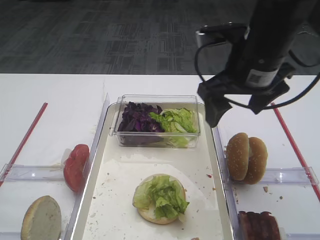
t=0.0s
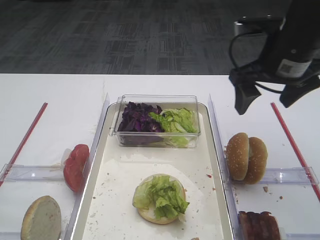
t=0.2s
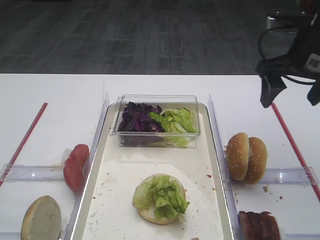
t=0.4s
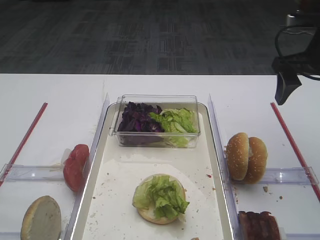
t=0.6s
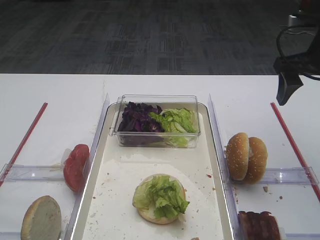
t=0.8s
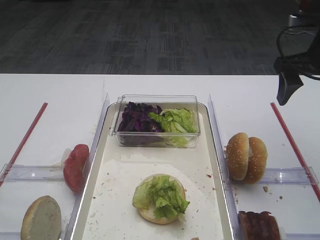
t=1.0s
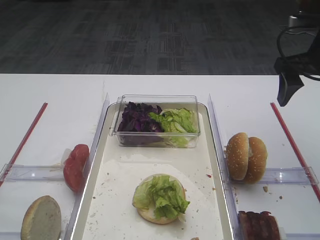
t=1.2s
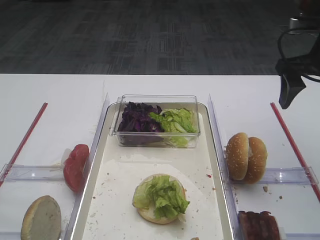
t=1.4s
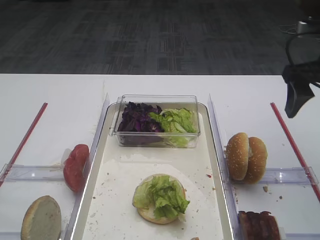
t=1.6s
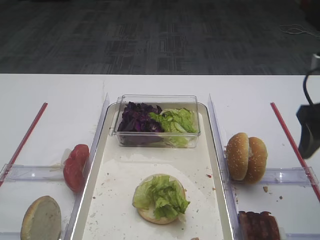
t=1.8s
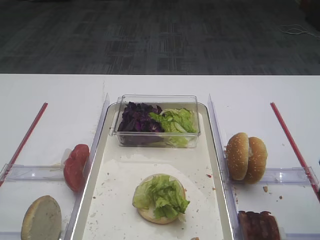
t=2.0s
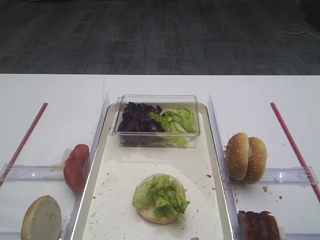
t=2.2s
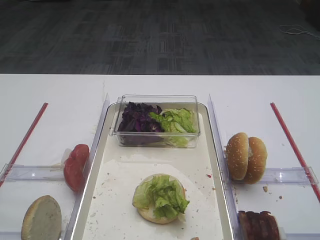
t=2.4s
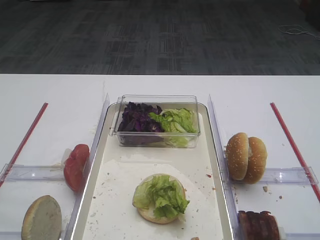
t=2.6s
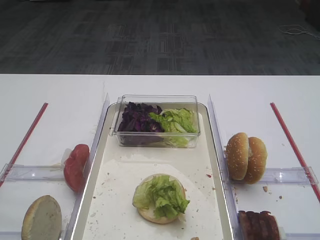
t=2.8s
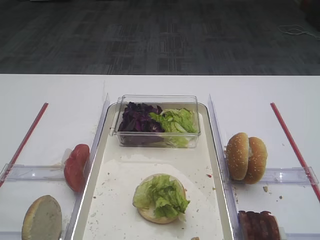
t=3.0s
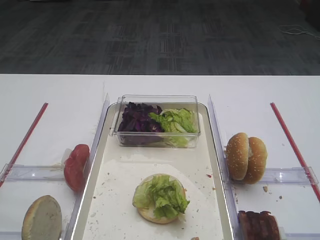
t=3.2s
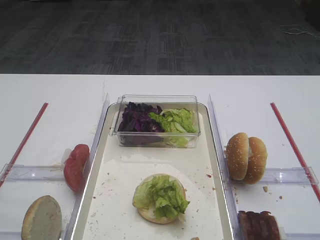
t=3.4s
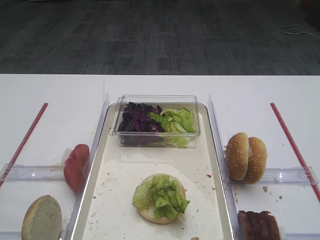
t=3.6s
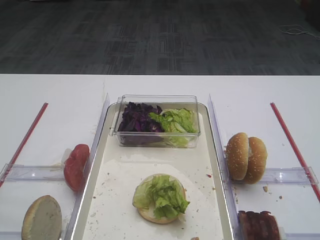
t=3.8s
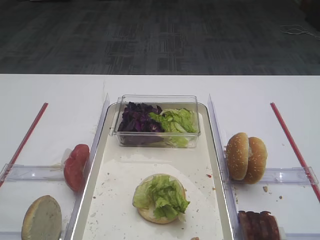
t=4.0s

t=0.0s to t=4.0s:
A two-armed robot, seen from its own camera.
t=0.0s to t=1.4s: The right gripper is displaced to the right by roughly 15 cm.
t=1.4s to t=2.6s: The right gripper is displaced backward by some 30 cm.

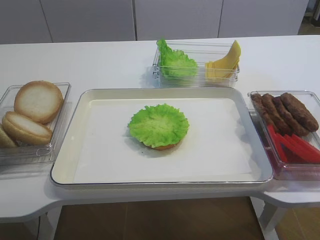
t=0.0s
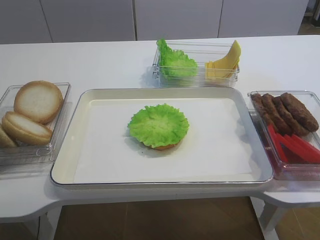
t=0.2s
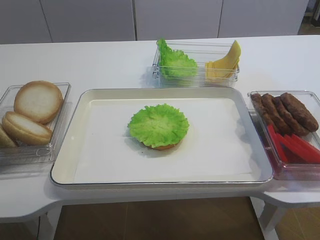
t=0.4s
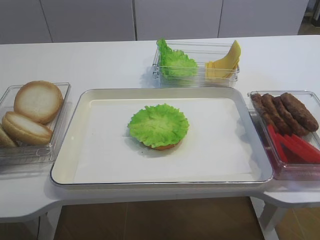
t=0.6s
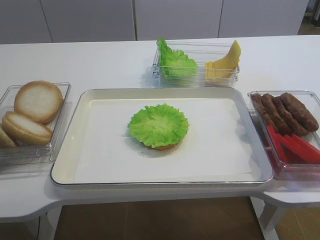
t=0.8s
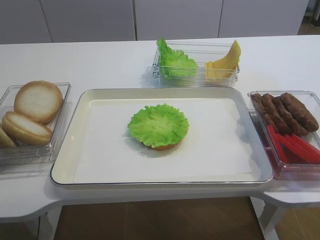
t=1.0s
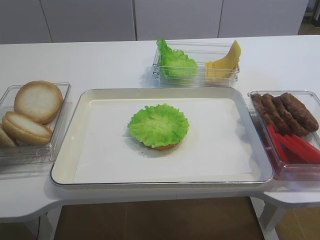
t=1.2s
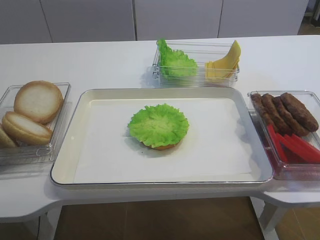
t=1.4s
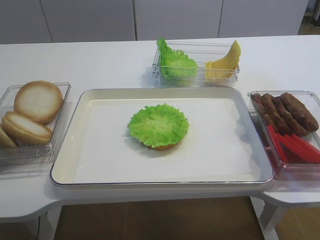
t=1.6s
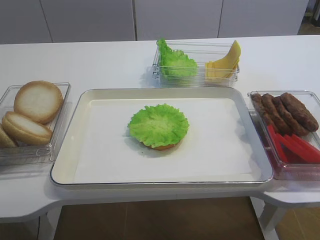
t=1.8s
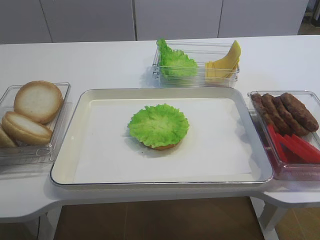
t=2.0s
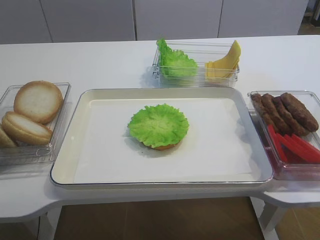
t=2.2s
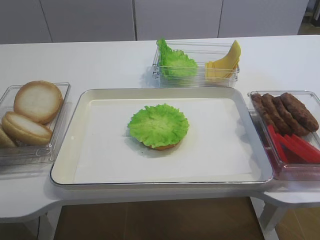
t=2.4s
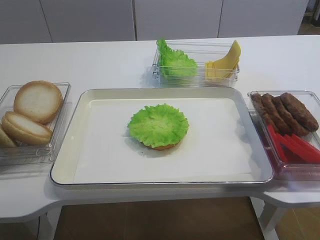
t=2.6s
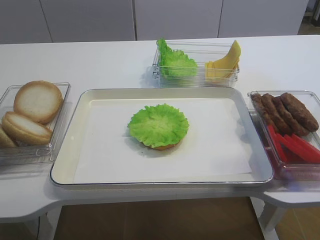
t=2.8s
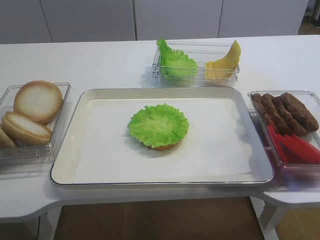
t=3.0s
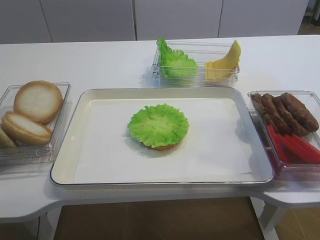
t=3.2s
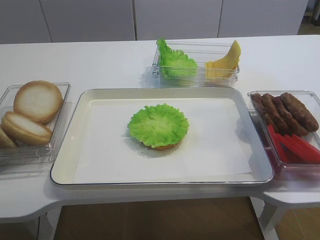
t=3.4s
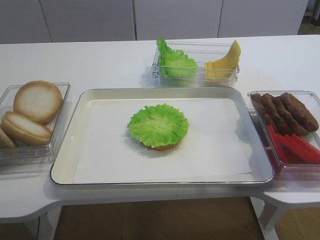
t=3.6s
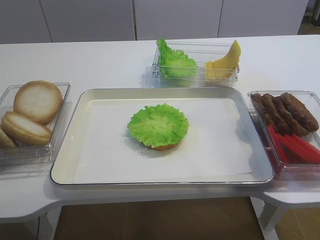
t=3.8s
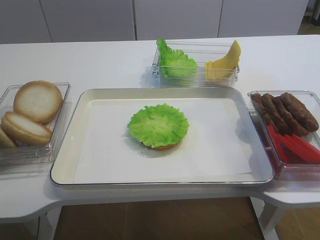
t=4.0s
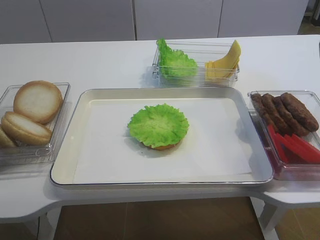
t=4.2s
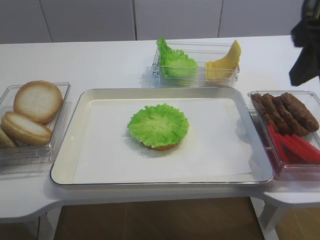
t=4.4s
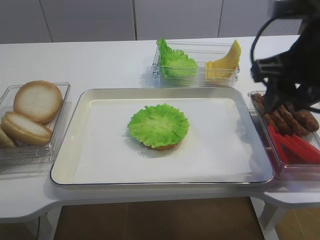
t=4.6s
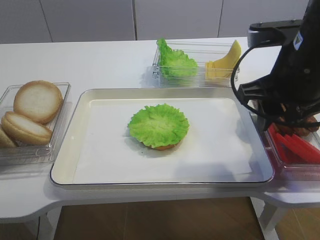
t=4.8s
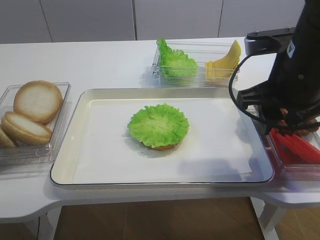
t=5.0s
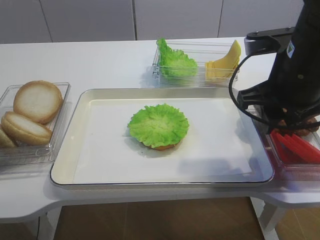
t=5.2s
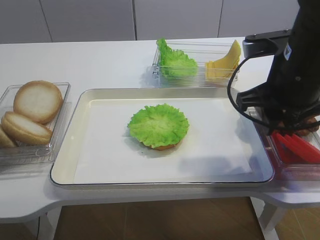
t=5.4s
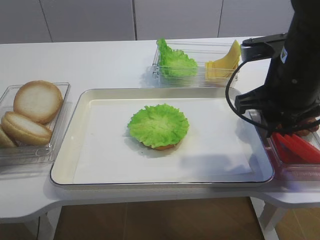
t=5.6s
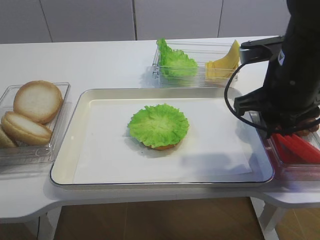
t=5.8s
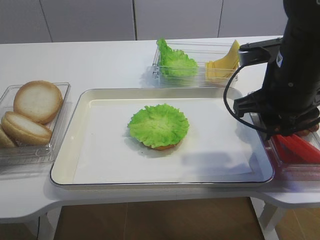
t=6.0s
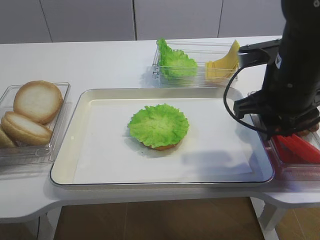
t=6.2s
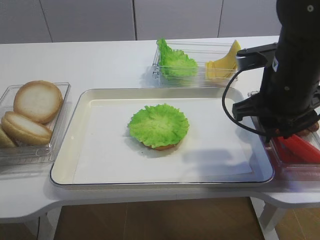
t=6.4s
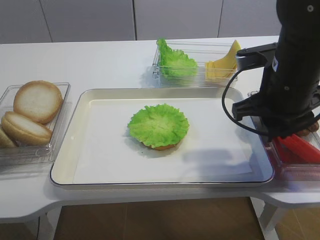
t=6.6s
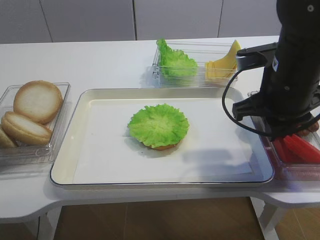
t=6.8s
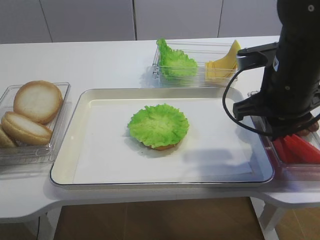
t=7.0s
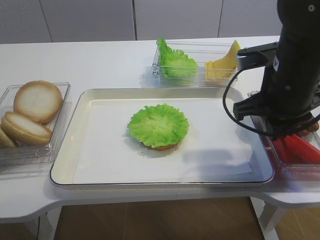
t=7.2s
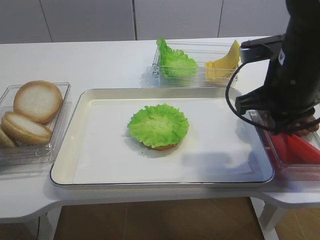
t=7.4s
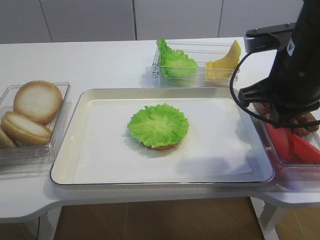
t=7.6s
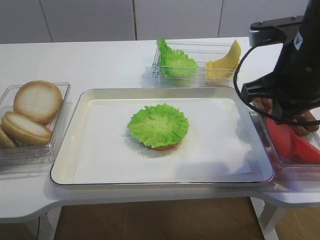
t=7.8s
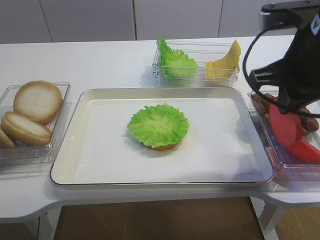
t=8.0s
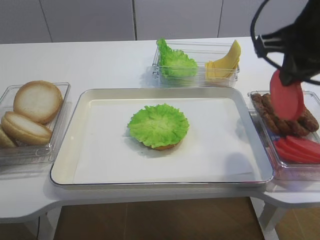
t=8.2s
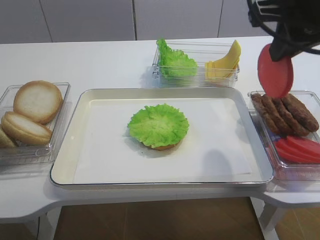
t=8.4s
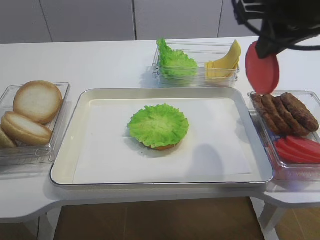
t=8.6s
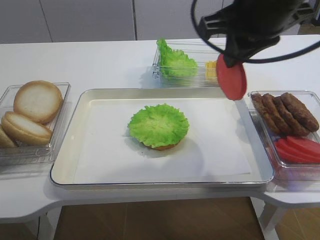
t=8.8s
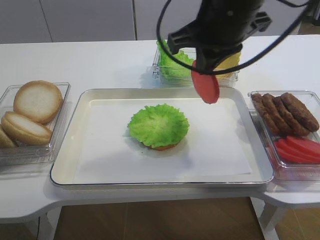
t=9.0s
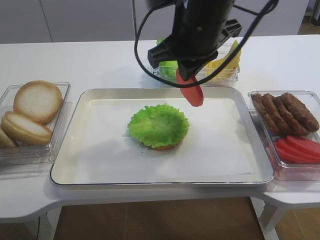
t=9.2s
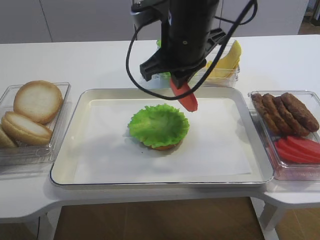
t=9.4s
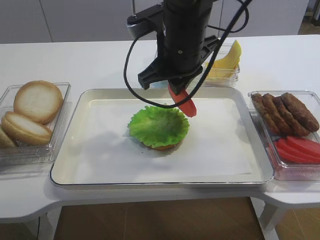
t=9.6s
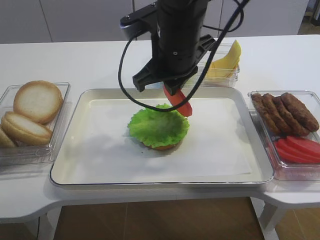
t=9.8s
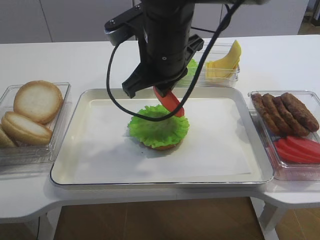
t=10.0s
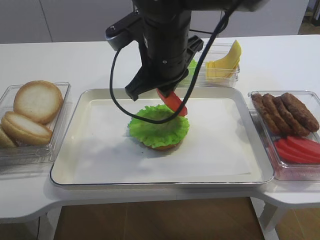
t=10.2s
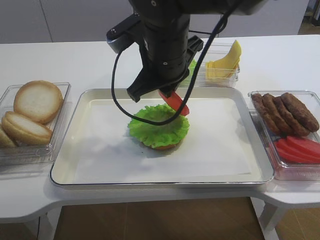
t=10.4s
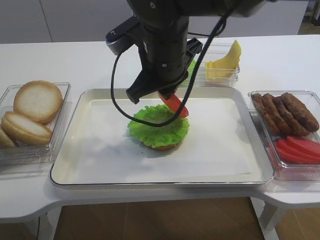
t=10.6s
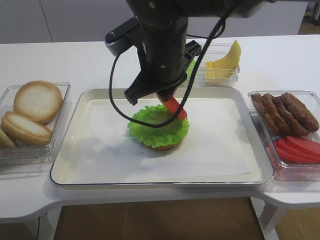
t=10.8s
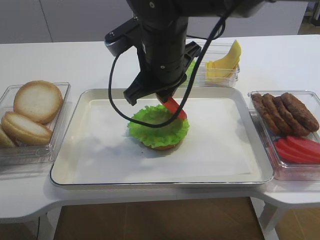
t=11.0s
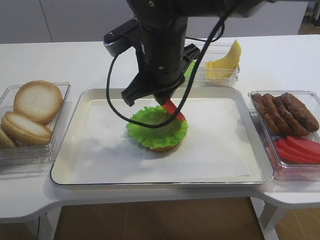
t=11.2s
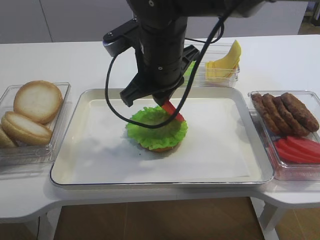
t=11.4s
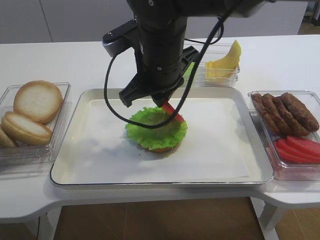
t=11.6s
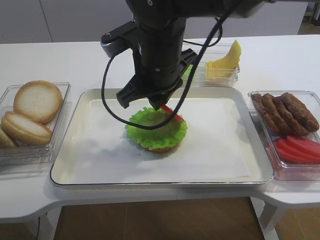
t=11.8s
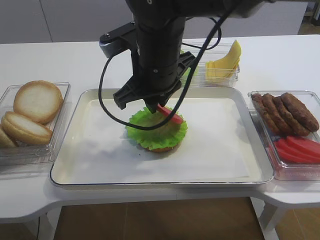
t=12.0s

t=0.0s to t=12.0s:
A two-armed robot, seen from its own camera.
Step, t=0.0s to t=7.8s: Pick up the tomato slice with the right gripper.
t=1.6s to t=3.0s: The right gripper is displaced upward by about 10 cm, and opens up.
t=3.0s to t=4.4s: The right gripper goes about 15 cm forward.
t=4.4s to t=6.0s: The right gripper goes about 10 cm downward and forward.
t=6.0s to t=7.6s: The right gripper closes up.
t=7.6s to t=9.0s: The right gripper moves to the left and upward, approximately 10 cm.
t=9.0s to t=10.4s: The right gripper goes approximately 10 cm to the left and downward.
t=10.4s to t=12.0s: The grippers make only small movements.

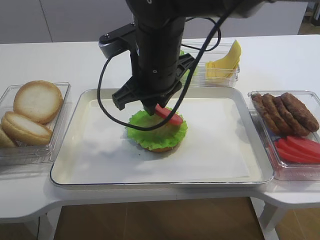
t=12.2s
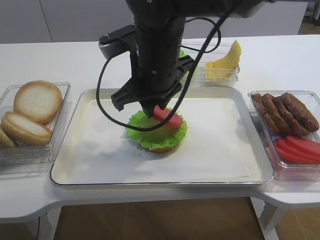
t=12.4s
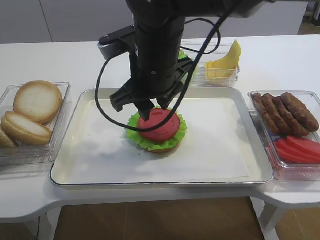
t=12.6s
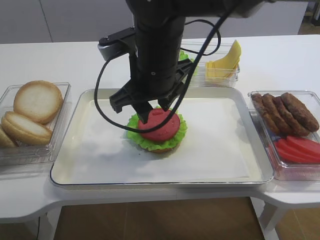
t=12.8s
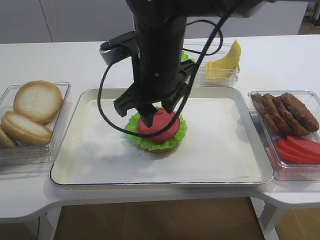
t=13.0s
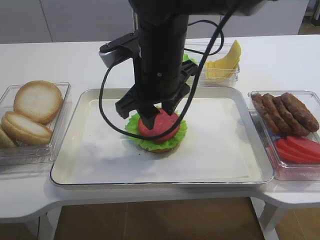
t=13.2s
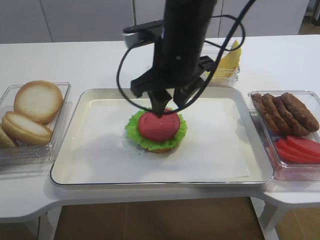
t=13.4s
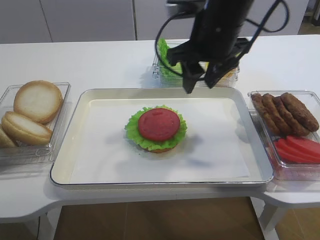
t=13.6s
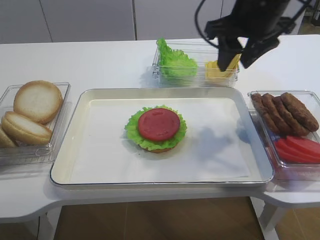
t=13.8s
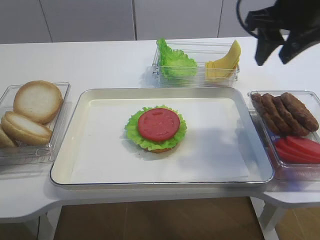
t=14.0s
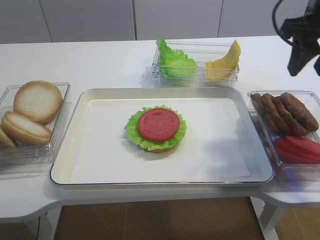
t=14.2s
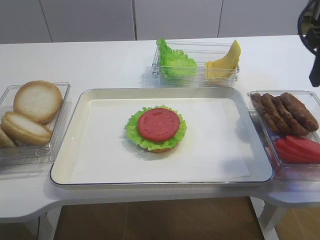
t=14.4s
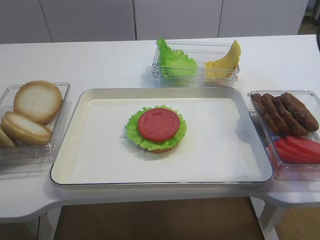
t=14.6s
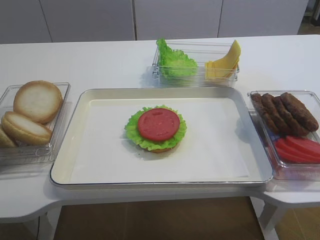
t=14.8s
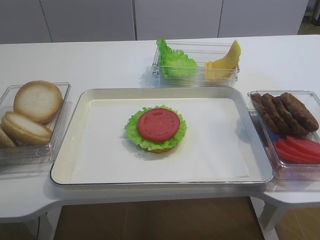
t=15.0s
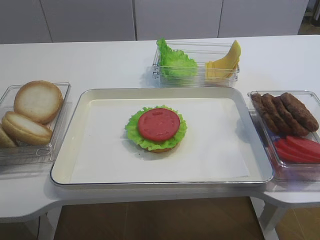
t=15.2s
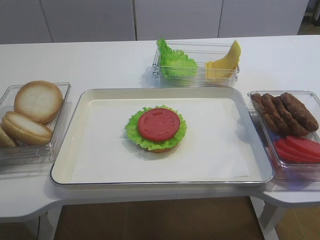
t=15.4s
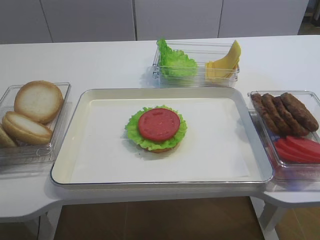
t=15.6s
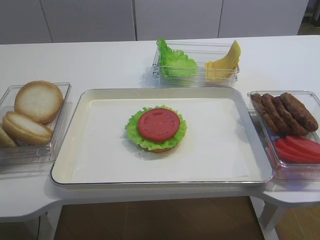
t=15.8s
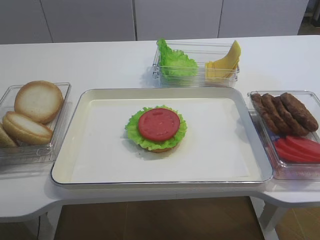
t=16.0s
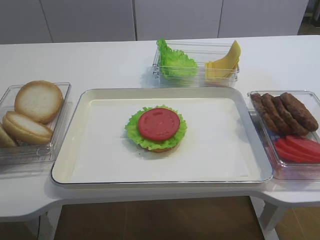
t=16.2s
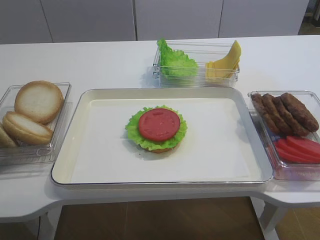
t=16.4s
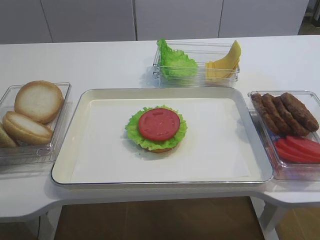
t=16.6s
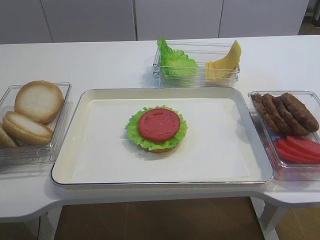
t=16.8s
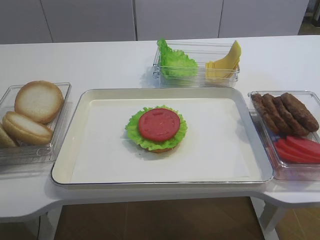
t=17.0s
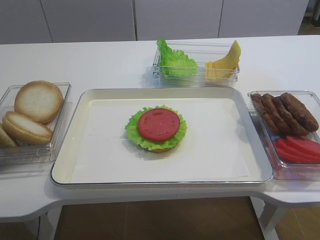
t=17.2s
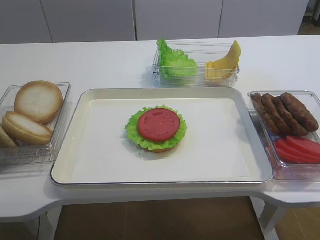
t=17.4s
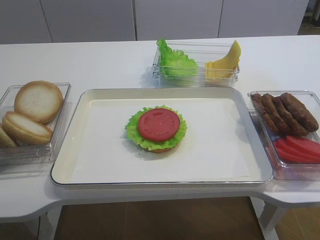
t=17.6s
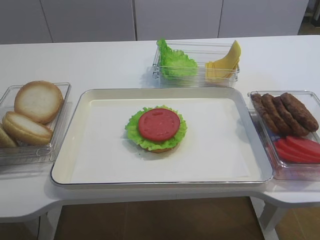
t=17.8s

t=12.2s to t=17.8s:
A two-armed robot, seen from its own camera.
t=12.2s to t=13.6s: The right gripper heads to the right, covering about 10 cm, and opens its fingers.
t=13.6s to t=15.0s: The right gripper goes some 25 cm to the right and backward.
t=15.0s to t=16.4s: The right gripper moves backward and downward, approximately 20 cm.
